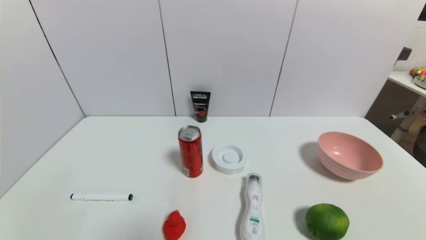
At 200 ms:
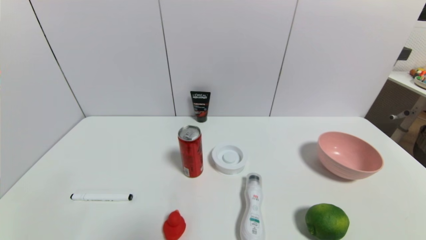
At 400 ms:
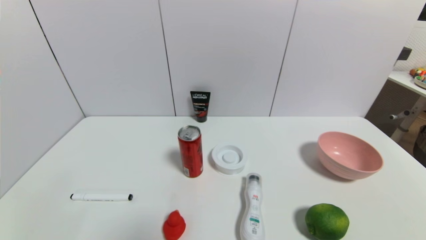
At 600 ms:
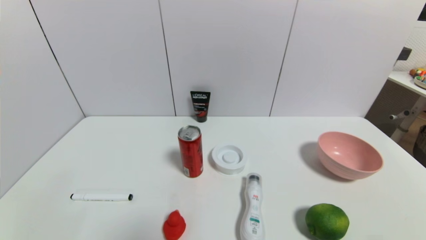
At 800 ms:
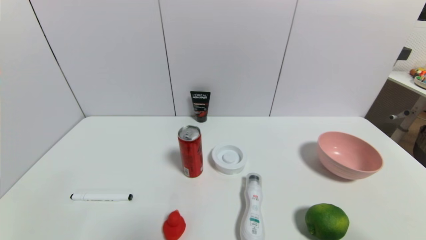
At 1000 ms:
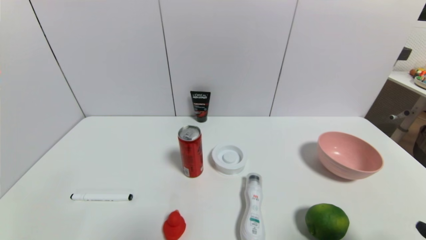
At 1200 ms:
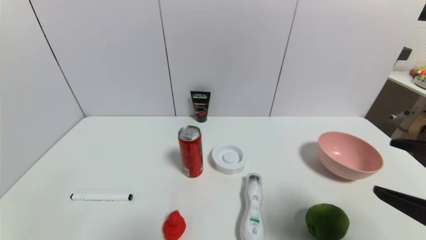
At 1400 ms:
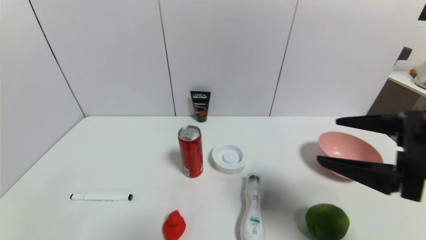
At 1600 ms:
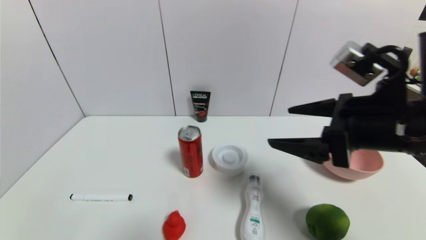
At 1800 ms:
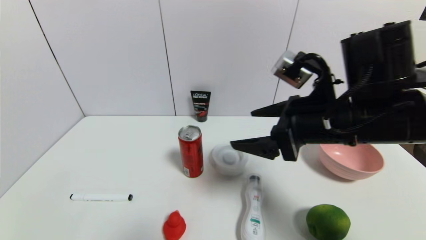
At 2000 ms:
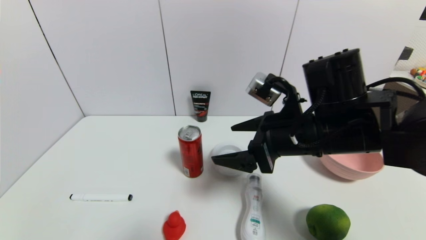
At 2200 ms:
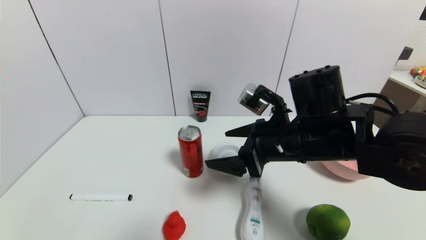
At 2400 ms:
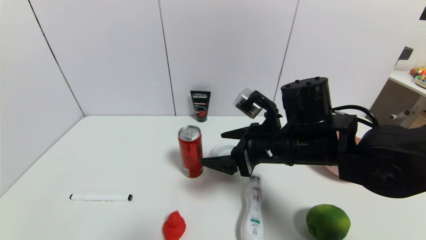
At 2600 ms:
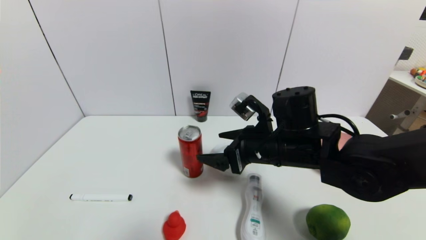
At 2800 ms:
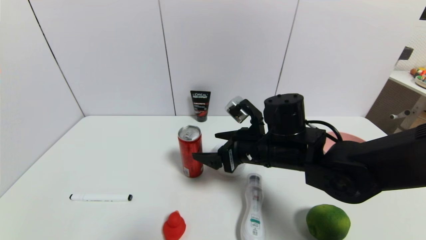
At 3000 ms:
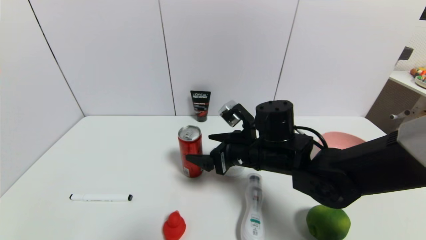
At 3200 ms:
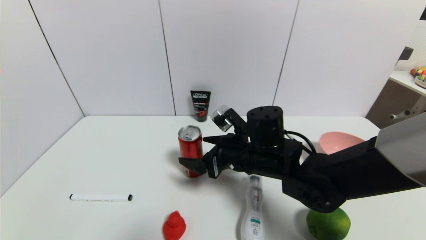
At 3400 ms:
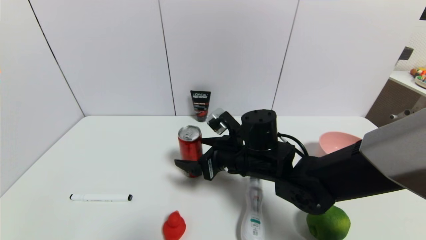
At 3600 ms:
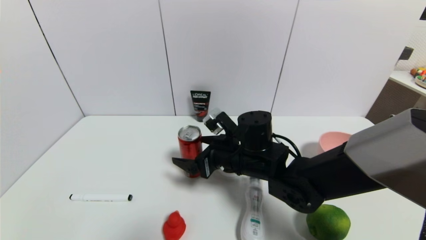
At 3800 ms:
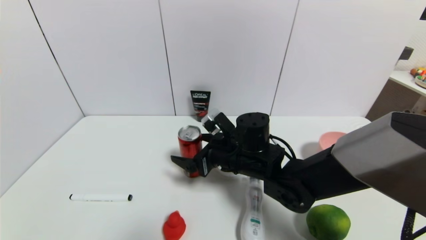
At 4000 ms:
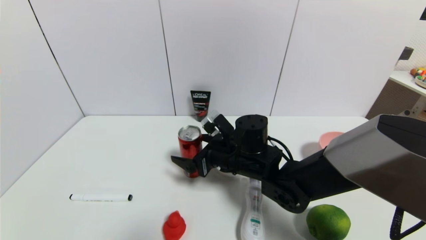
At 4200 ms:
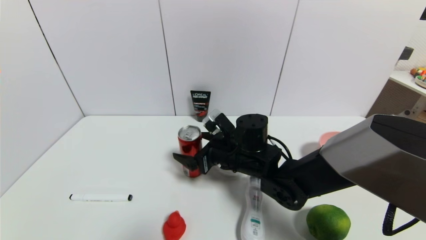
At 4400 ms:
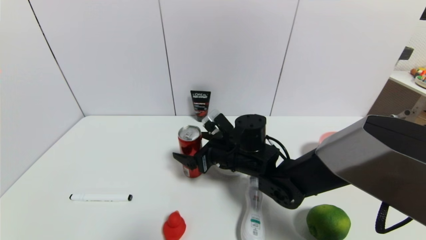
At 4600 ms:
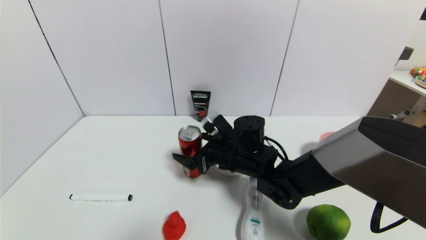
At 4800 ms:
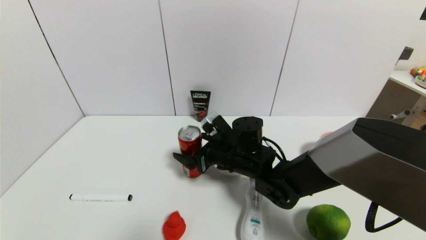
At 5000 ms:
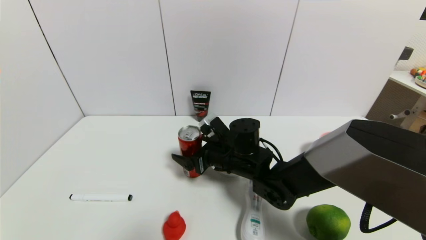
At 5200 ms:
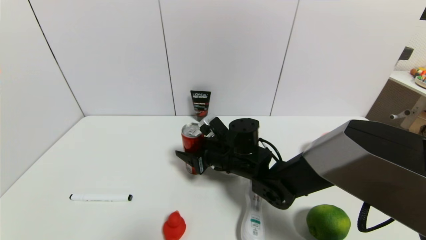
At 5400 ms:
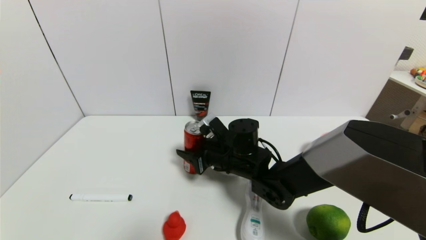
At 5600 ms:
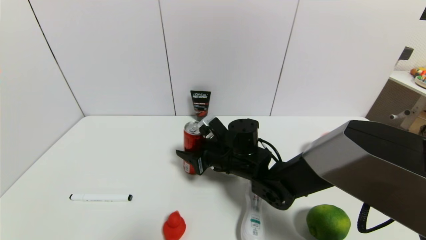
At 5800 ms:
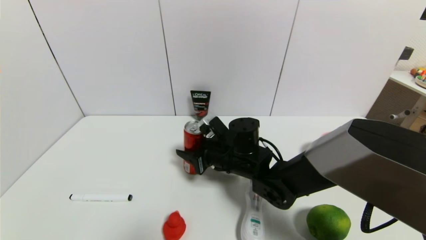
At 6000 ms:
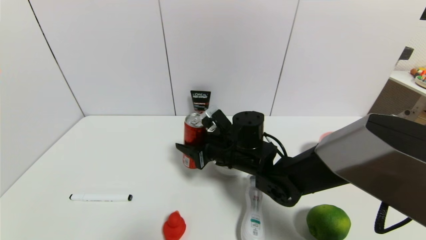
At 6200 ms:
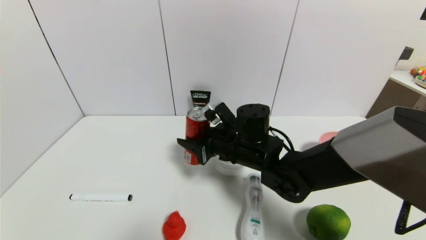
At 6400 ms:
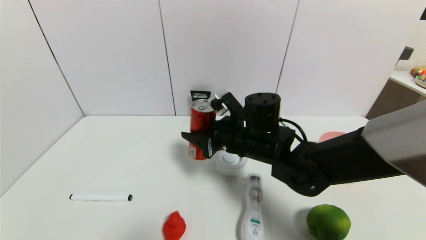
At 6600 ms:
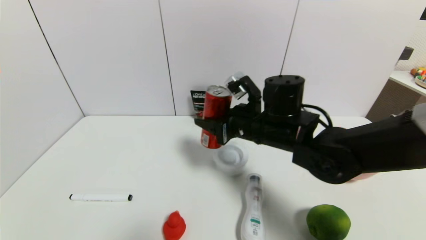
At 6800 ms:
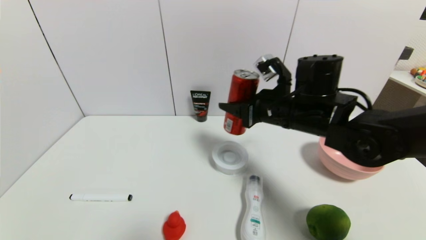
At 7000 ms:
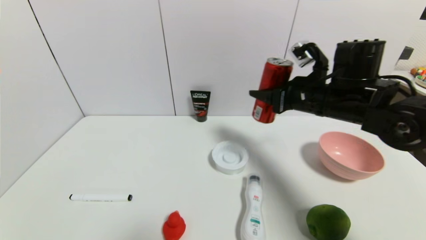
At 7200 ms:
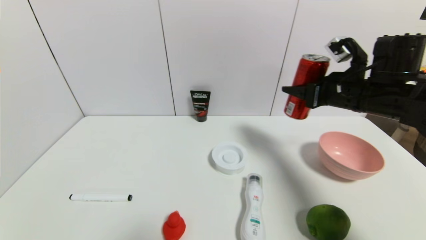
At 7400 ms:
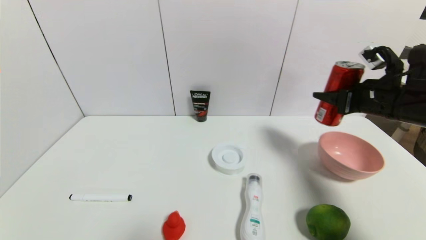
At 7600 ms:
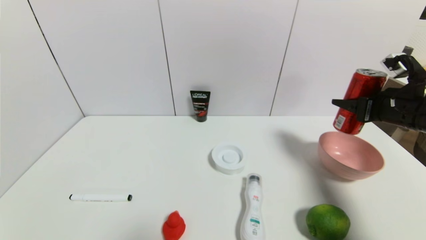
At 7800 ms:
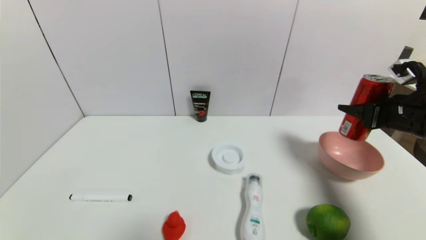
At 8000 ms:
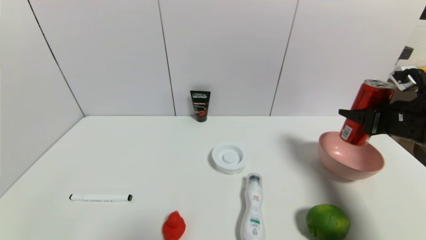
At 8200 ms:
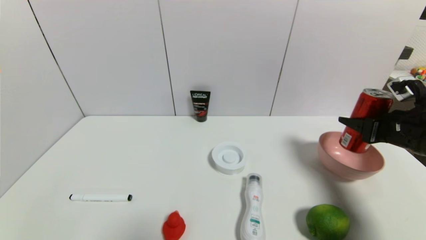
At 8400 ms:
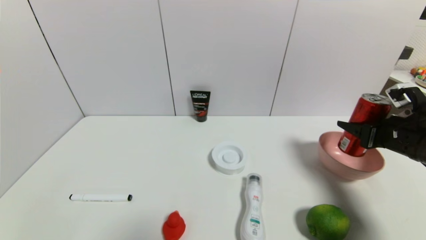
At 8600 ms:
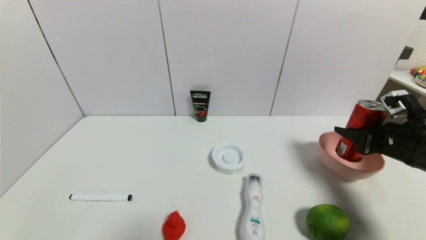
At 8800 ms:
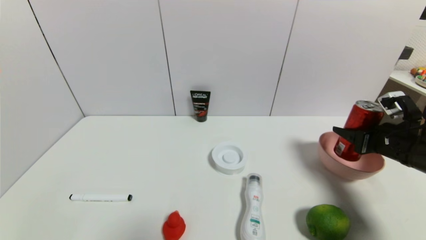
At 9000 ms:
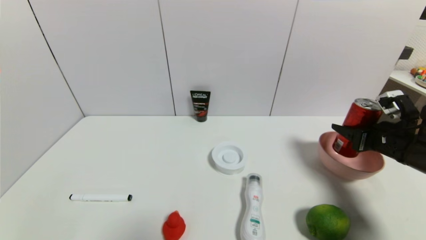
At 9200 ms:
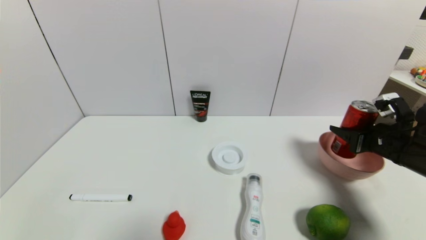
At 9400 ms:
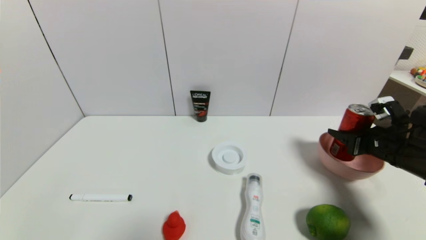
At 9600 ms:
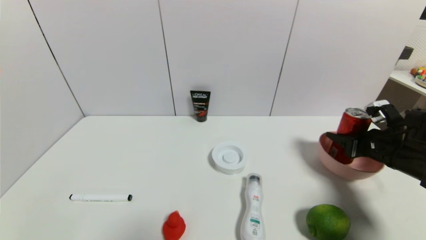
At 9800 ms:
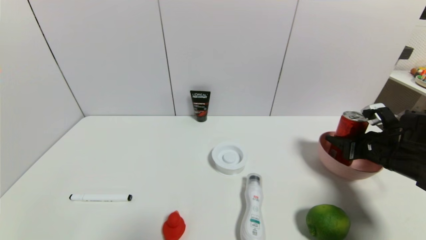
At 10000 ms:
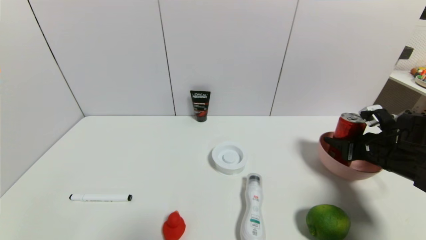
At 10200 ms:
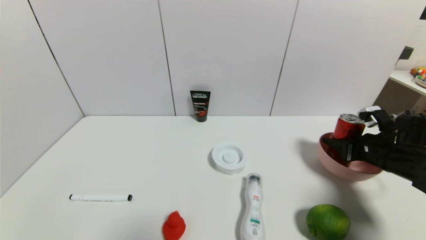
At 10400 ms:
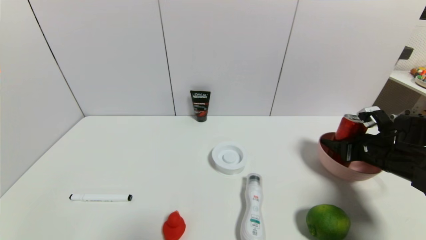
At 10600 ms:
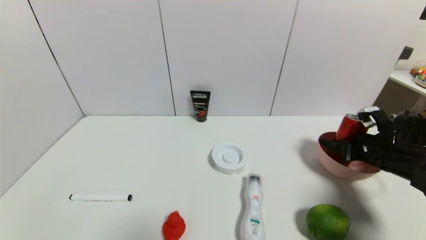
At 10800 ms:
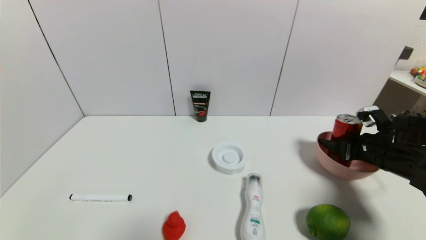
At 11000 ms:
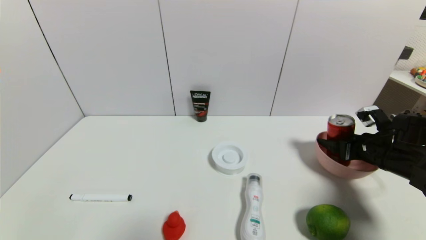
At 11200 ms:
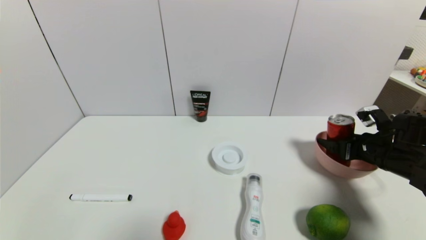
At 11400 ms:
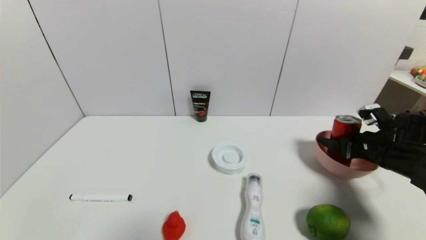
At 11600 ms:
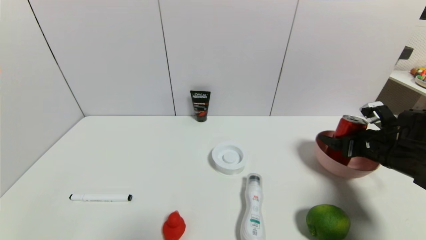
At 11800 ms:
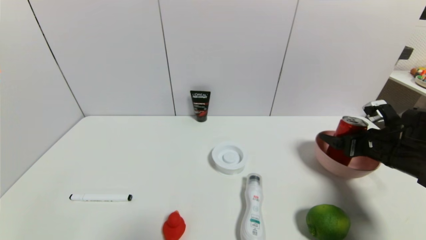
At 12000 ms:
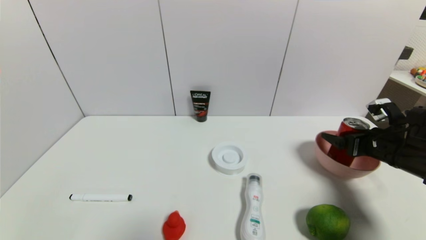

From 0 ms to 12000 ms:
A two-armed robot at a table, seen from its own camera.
Task of the whole recording: use a gripper to pick the target object and place on the pink bowl.
Step, from 0 ms to 5400 ms: Grasp the coke with the right gripper.
From 0 ms to 1600 ms: The right gripper is displaced forward, upward and to the left by about 30 cm.
From 1600 ms to 3000 ms: The right gripper goes some 20 cm to the left, downward and forward.
From 3000 ms to 4400 ms: The right gripper shifts by about 5 cm.
From 4400 ms to 6000 ms: The right gripper closes.
From 6000 ms to 7600 ms: The right gripper shifts roughly 30 cm to the right.
From 7600 ms to 9000 ms: The right gripper goes about 5 cm downward.
From 9000 ms to 10400 ms: The right gripper opens.
From 10400 ms to 12000 ms: The right gripper opens its fingers.

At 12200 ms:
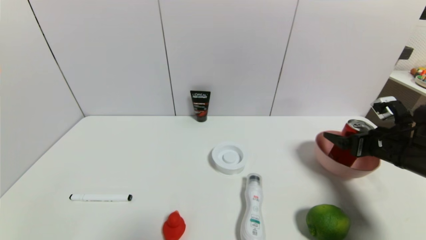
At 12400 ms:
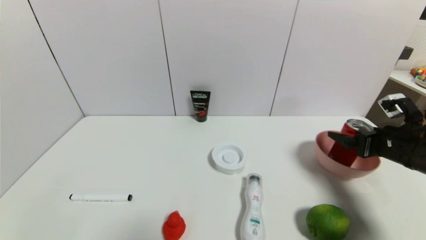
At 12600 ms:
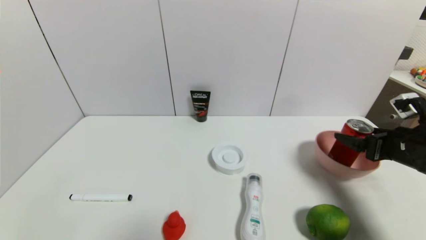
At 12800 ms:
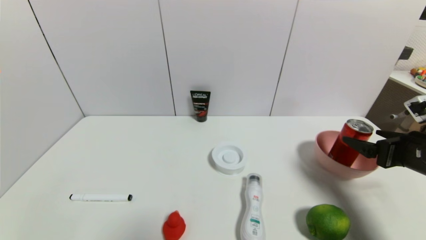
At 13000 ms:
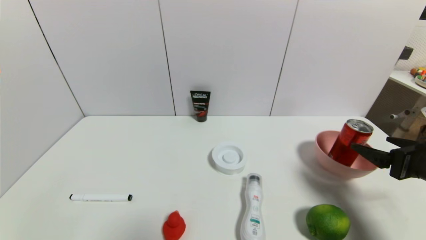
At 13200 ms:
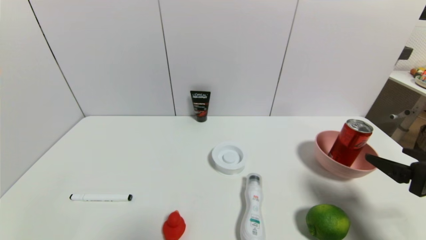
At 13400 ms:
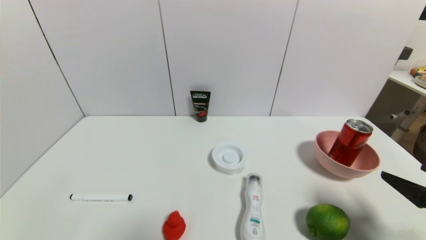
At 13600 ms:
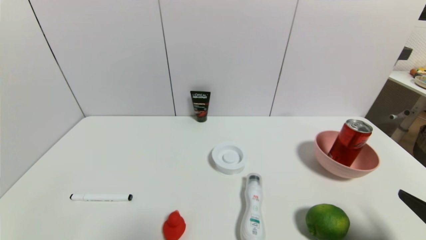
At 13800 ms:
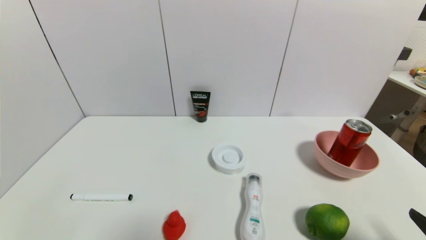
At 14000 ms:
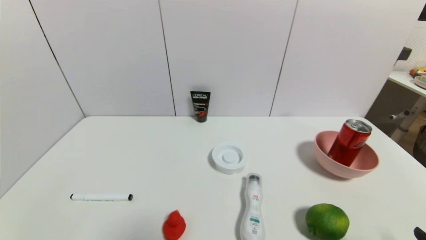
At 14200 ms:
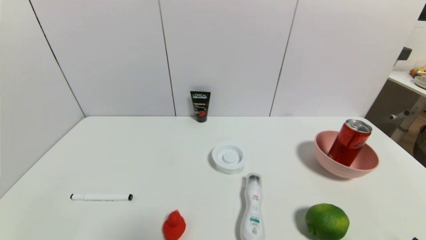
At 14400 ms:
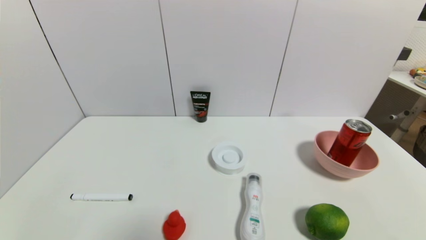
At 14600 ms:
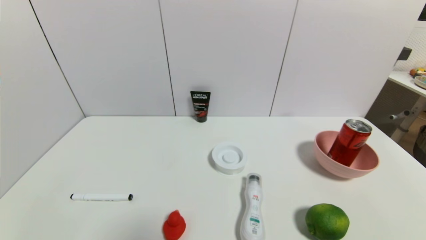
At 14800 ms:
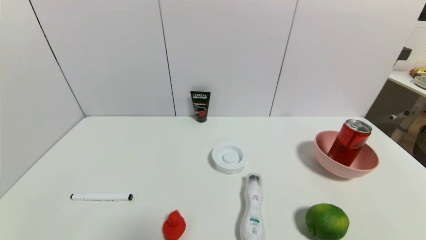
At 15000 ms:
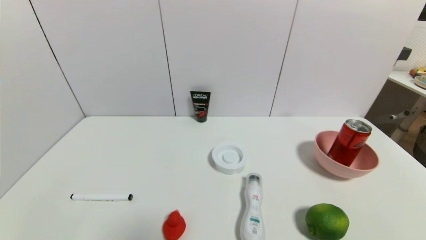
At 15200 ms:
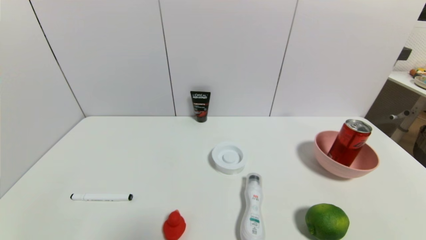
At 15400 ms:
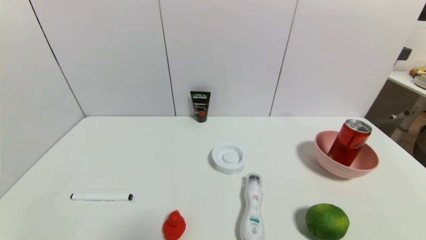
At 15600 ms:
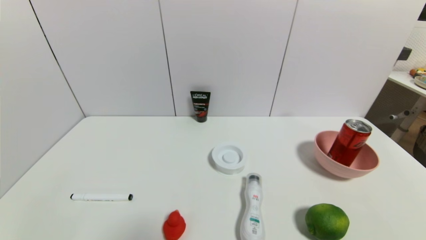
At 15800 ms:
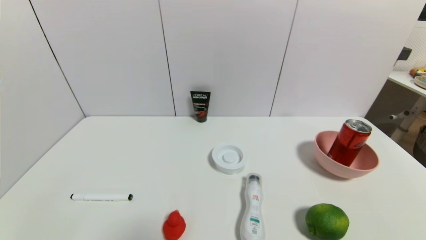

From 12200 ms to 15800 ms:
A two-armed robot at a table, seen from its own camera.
Task of the whole recording: use a gripper to pick the target object and place on the pink bowl.
From 12200 ms to 14000 ms: The right gripper is displaced backward by roughly 25 cm.
